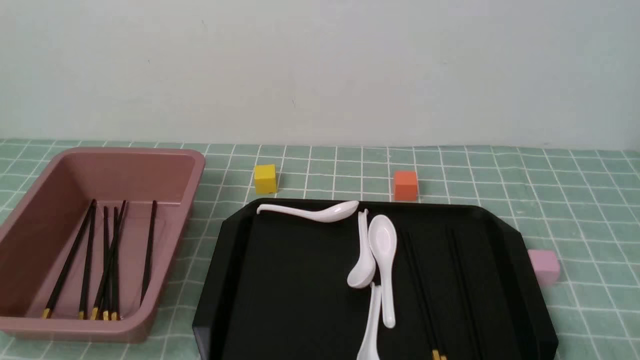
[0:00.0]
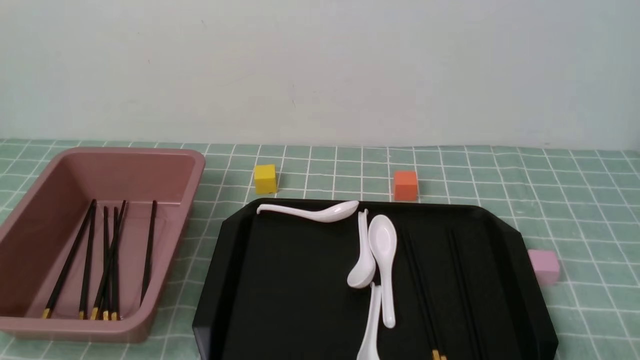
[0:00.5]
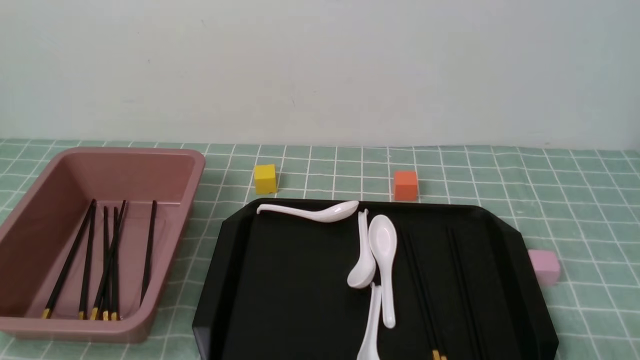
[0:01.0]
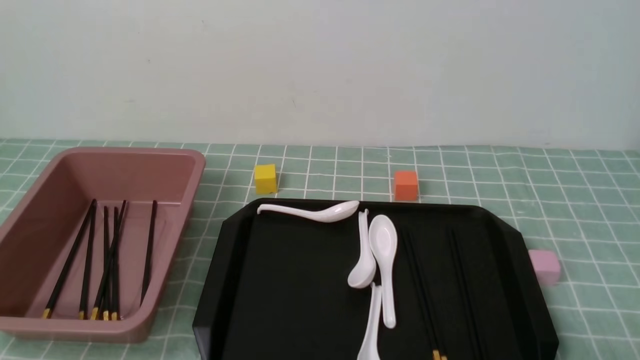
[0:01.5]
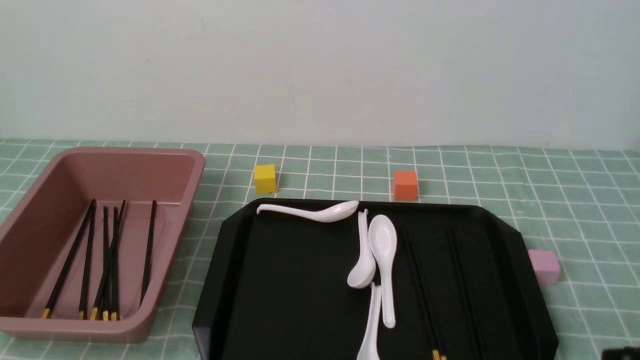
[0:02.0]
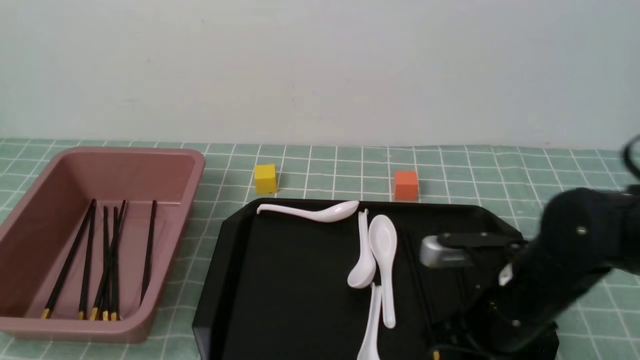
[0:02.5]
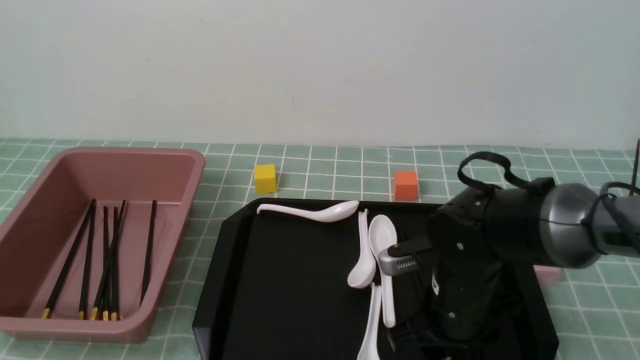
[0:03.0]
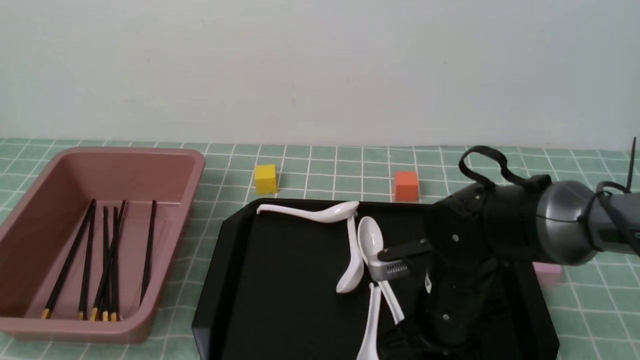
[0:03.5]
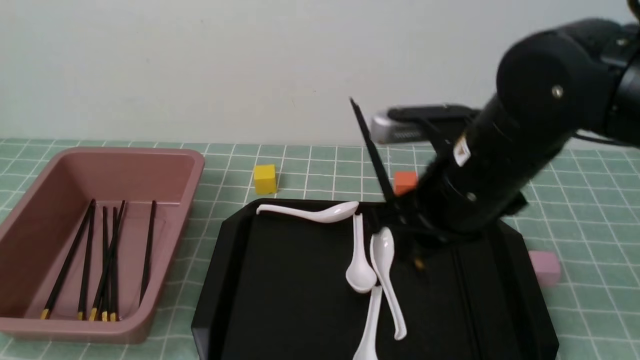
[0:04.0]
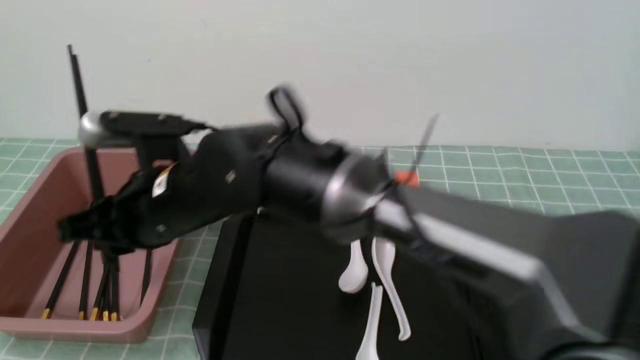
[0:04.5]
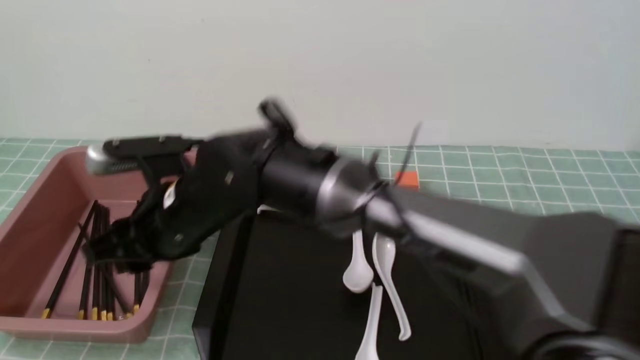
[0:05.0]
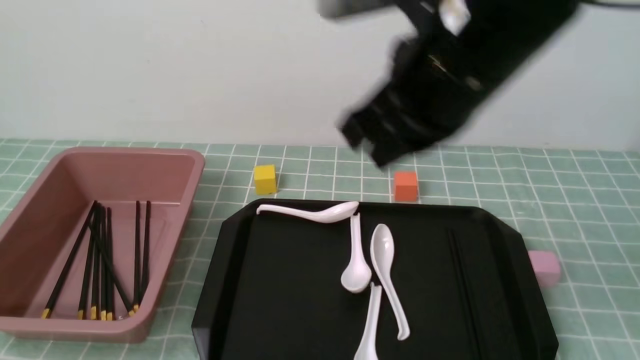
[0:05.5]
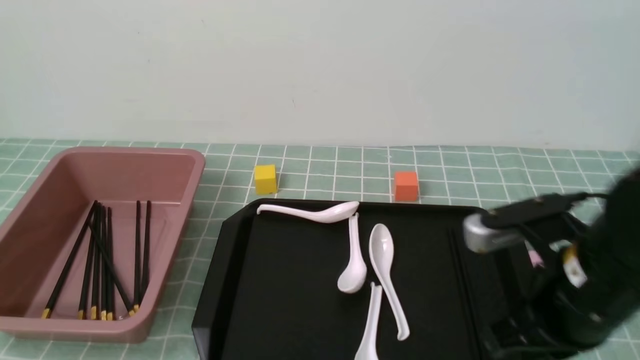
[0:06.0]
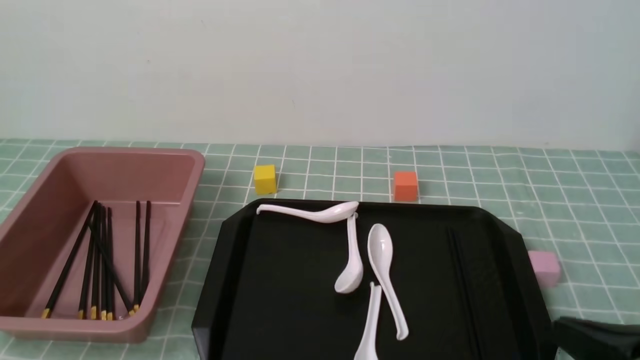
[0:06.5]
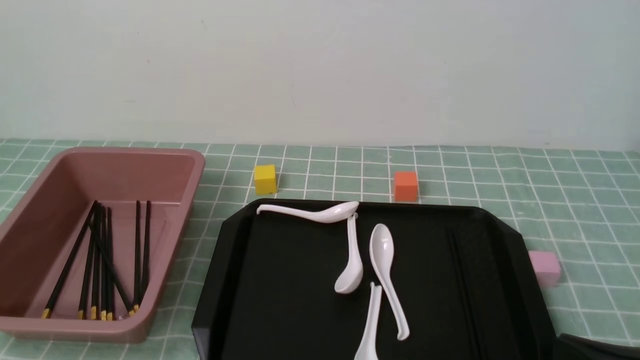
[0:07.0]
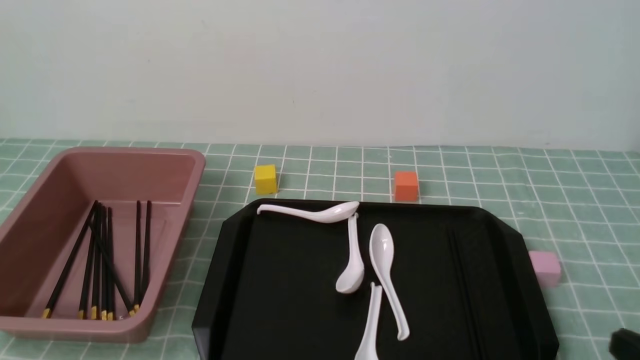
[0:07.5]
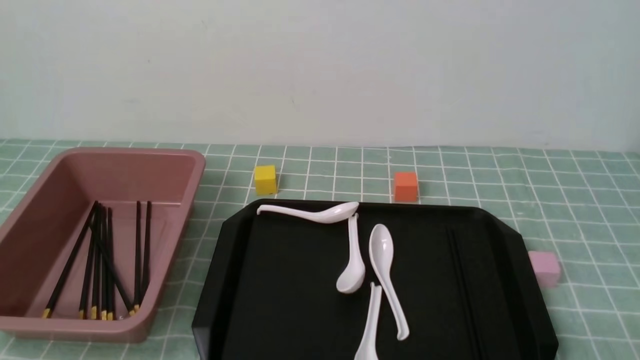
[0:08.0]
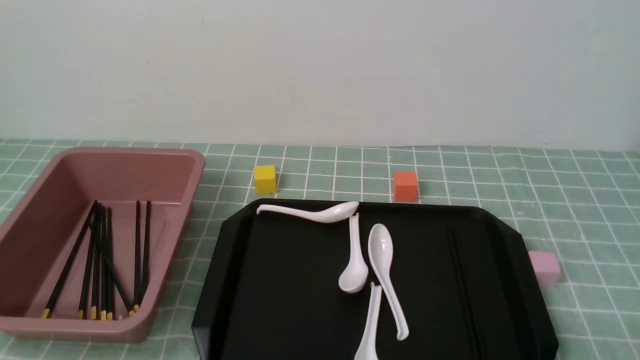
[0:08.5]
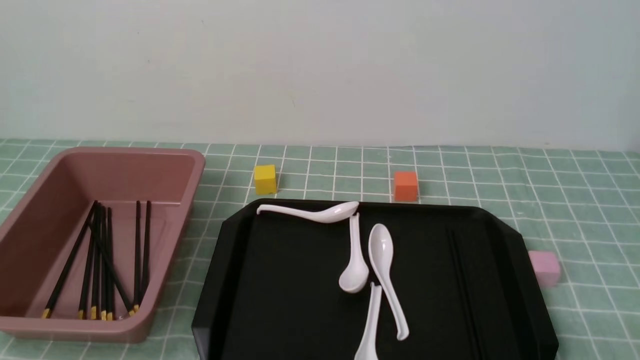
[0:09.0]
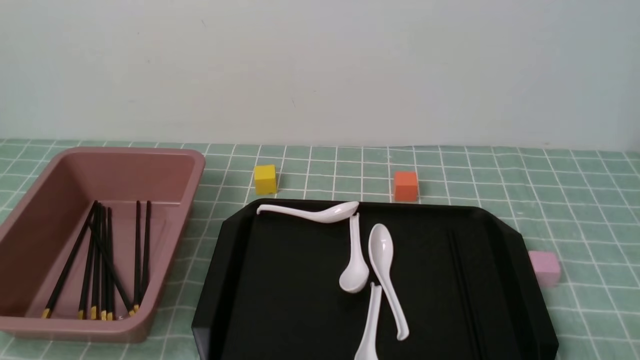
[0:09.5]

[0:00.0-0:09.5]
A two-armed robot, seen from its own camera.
Step, 0:00.0 to 0:03.5: use the right arm to grab a pair of chopsticks.
Step, 0:04.0 to 0:05.0: use the right arm to put the chopsticks into the lunch box.
0:02.0 to 0:04.0: The right gripper travels forward and to the left by roughly 25 cm, and opens, then closes once more.
0:04.0 to 0:05.5: The right gripper heads upward, covering approximately 10 cm, goes to the left and returns, approximately 25 cm each way, and closes its fingers.
0:05.5 to 0:07.5: The right gripper goes approximately 35 cm to the right, backward and downward.
0:07.5 to 0:09.5: The right gripper moves about 5 cm.

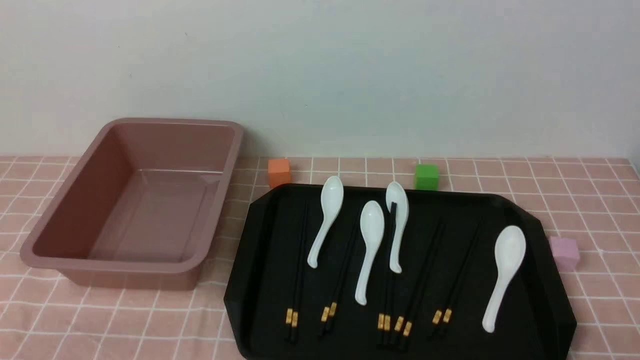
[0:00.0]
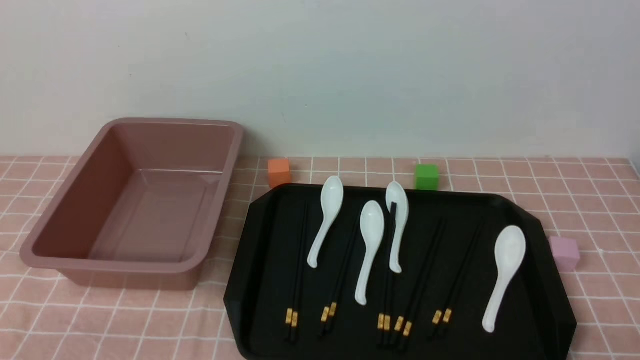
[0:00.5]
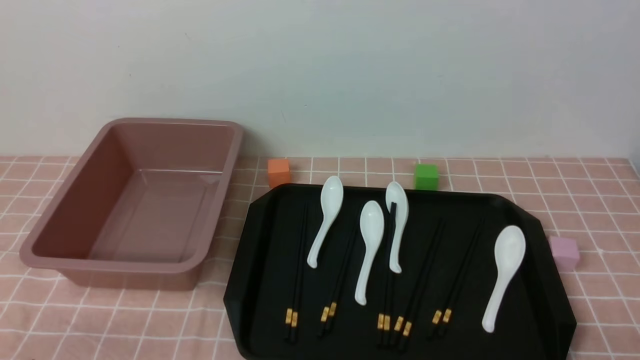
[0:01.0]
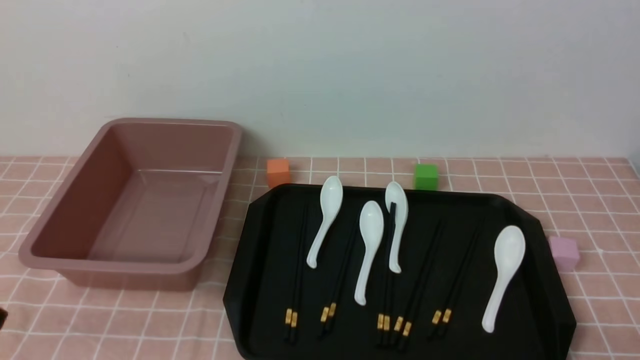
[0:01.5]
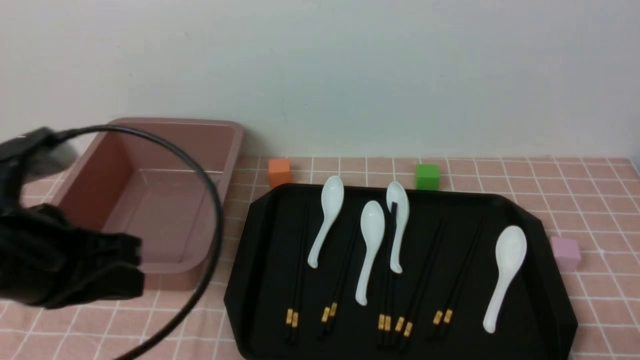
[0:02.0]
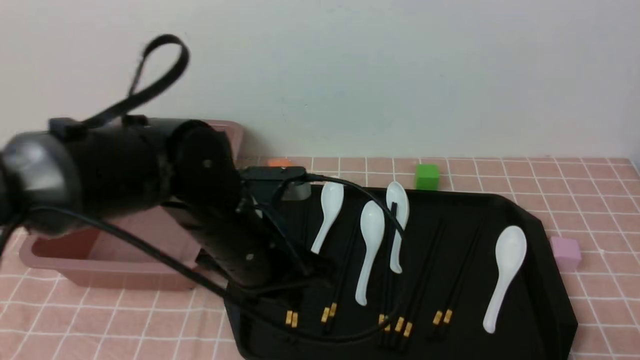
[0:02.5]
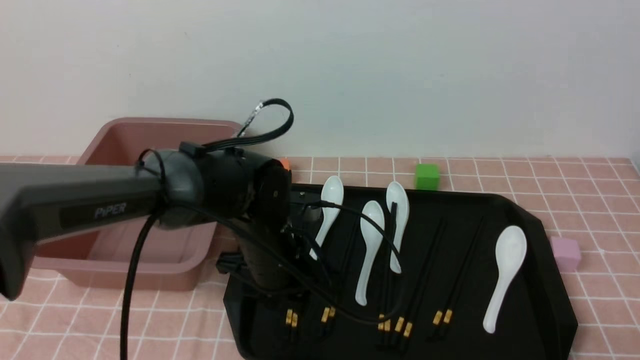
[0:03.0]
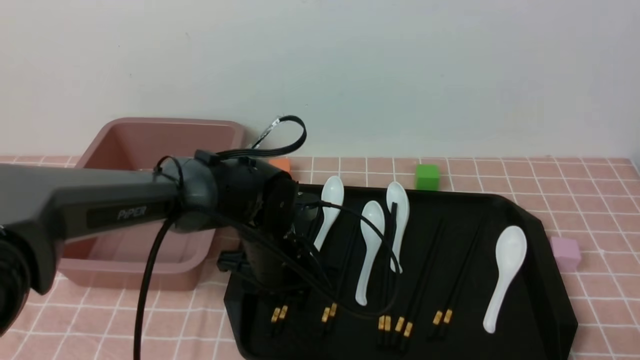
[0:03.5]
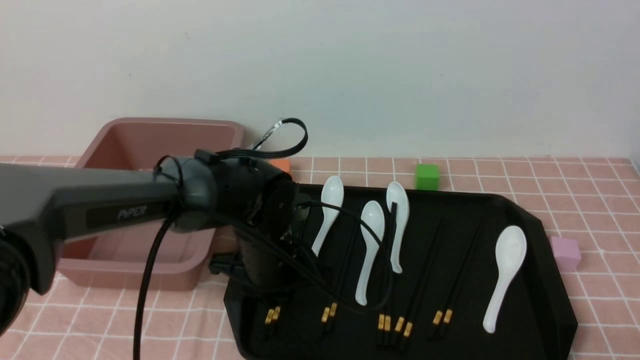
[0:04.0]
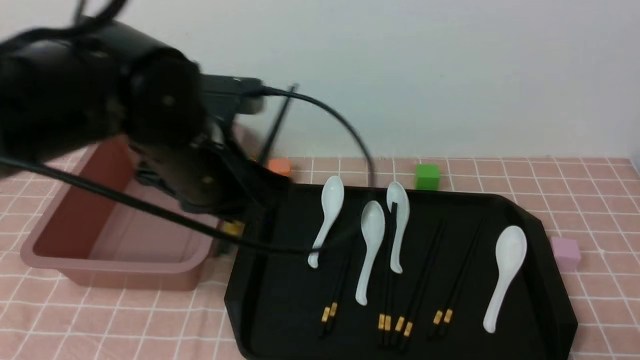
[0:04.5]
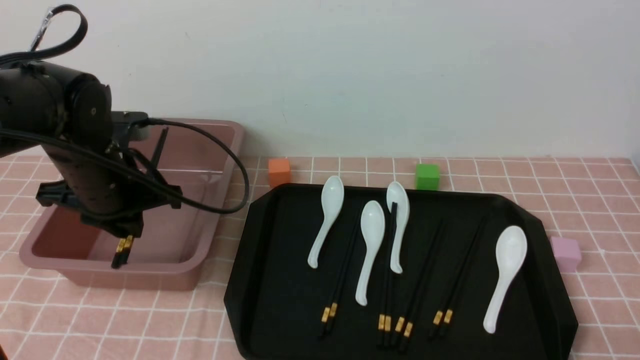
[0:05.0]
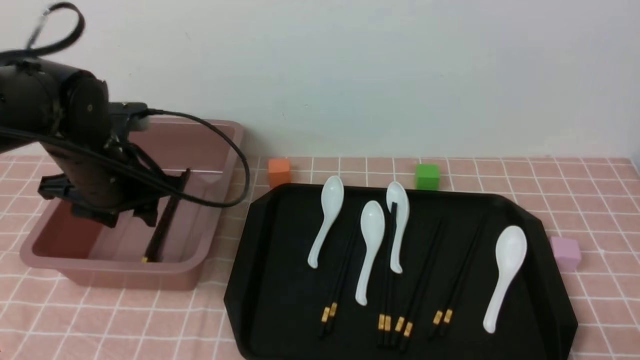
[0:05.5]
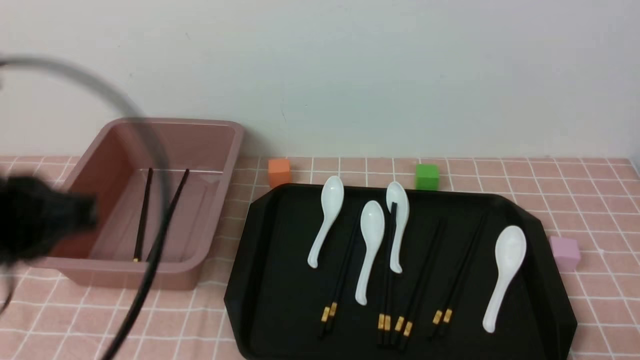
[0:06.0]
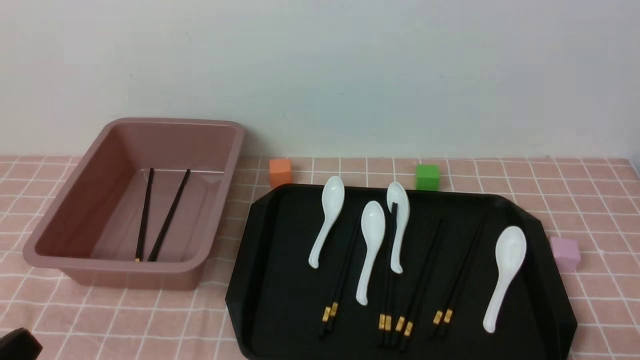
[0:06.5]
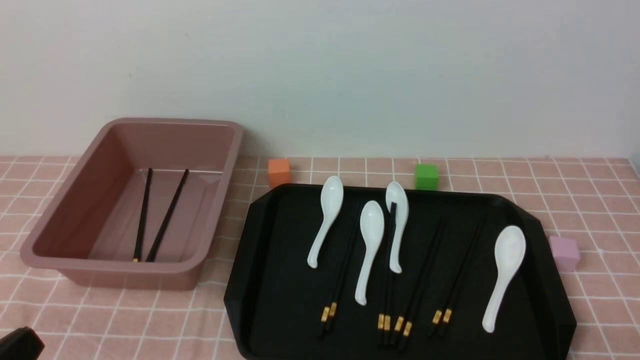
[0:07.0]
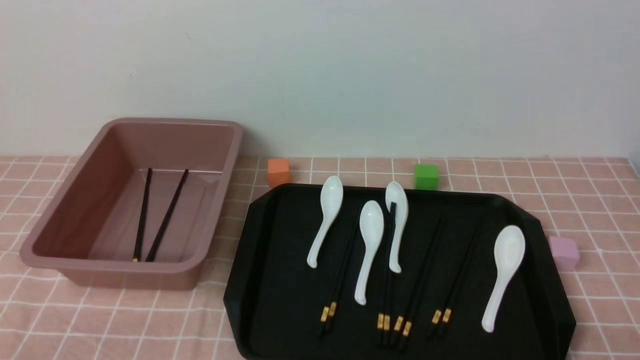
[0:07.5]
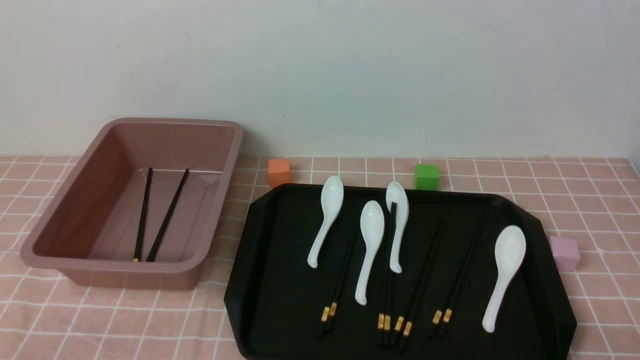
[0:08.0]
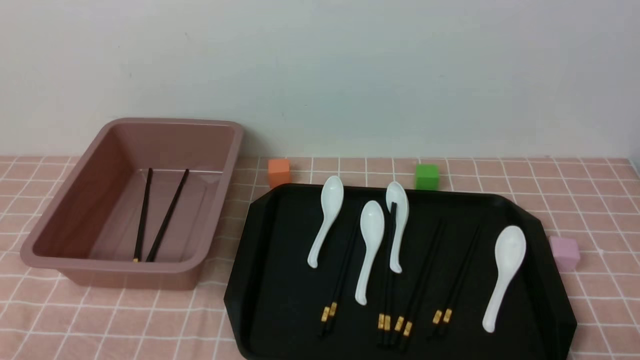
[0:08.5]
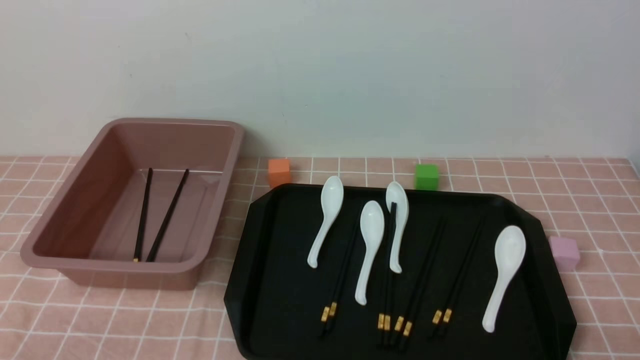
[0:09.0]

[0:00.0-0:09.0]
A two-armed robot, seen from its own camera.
Step, 0:00.0 to 0:04.0: use the left arm to grab a pair of chopsticks.
Step, 0:05.0 to 0:05.5: use the left arm to put the chopsticks into the lunch box.
0:00.0 to 0:02.0: The left gripper moves forward, upward and to the right, about 20 cm, and closes up.
0:02.0 to 0:04.5: The left gripper shifts approximately 15 cm forward and to the right, travels downward and back again, approximately 15 cm each way, and opens.
0:04.5 to 0:07.0: The left gripper is displaced backward and to the left by about 30 cm, and closes up.
